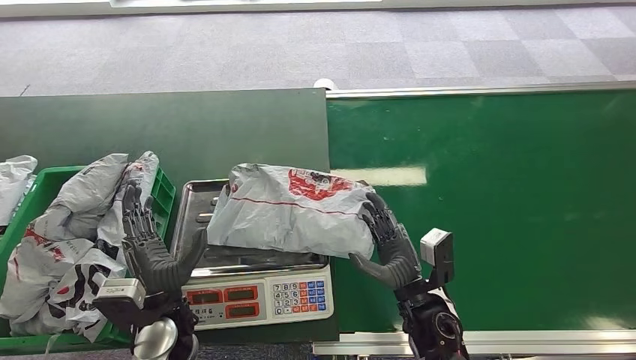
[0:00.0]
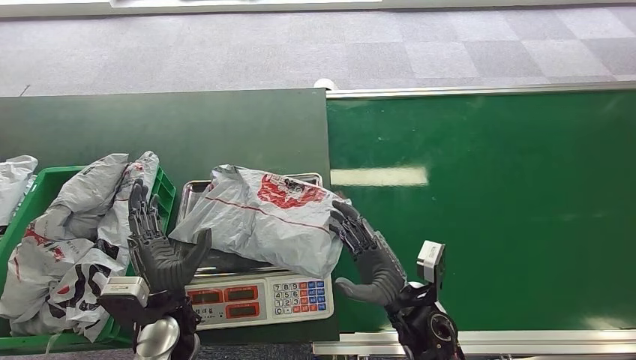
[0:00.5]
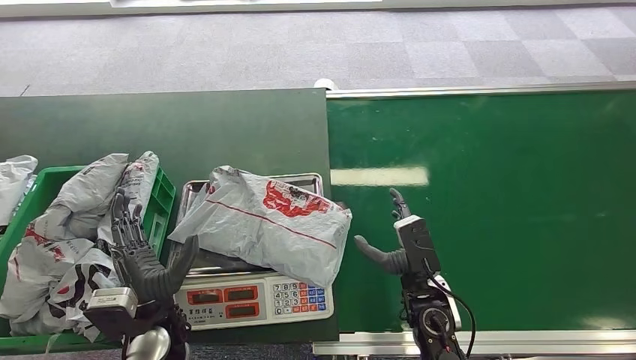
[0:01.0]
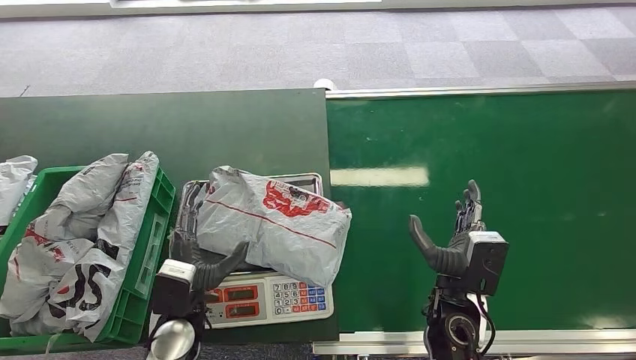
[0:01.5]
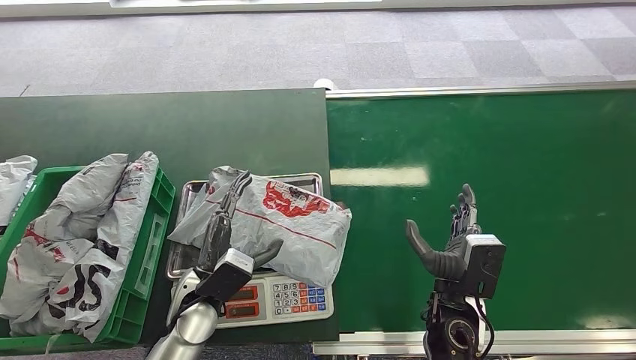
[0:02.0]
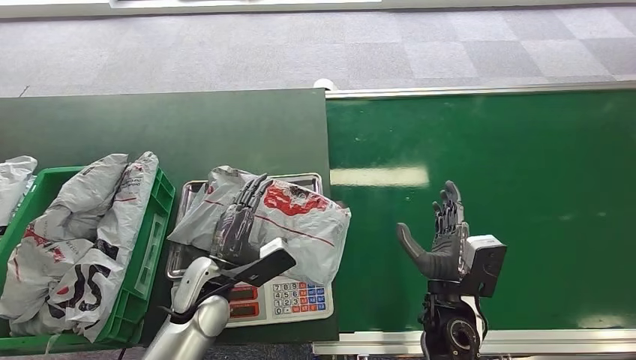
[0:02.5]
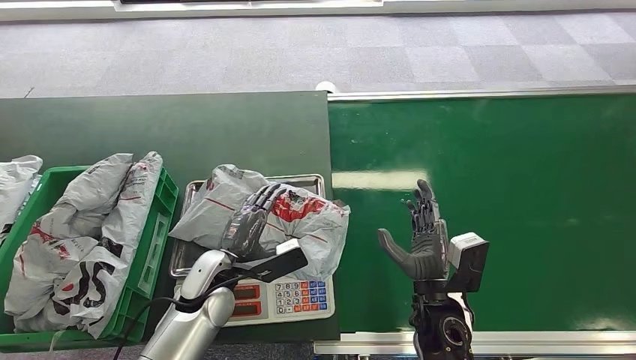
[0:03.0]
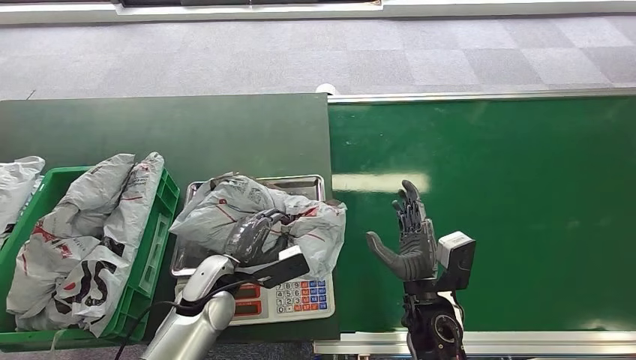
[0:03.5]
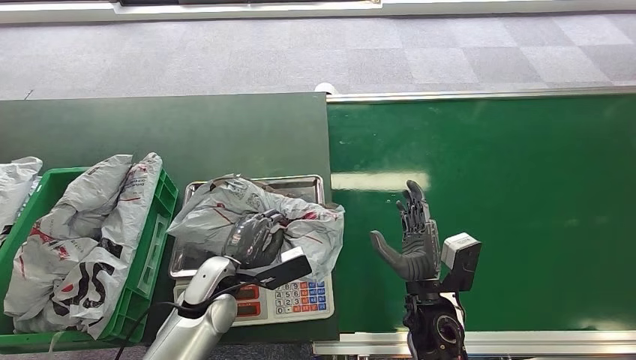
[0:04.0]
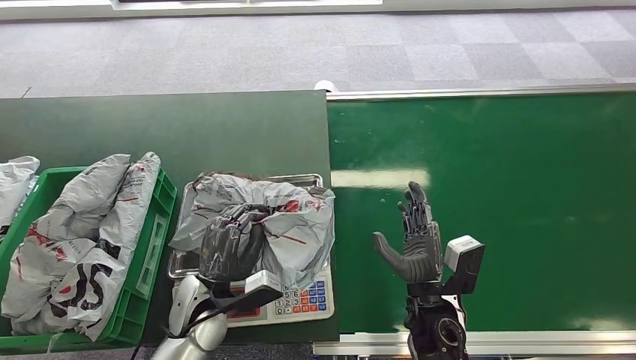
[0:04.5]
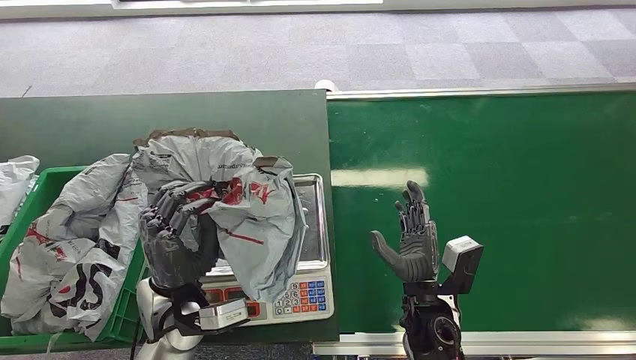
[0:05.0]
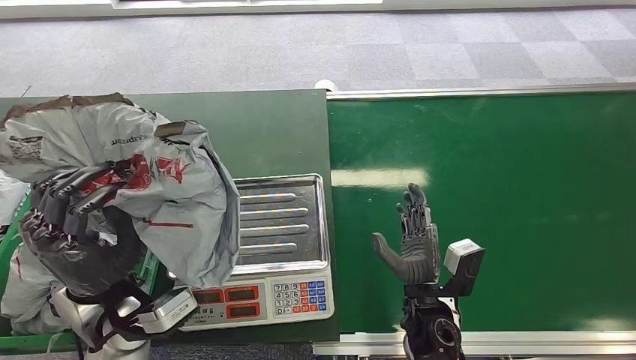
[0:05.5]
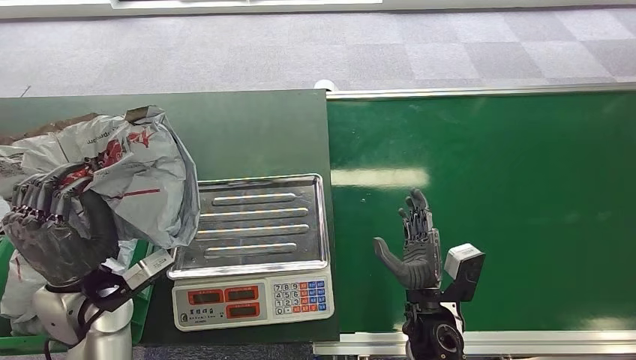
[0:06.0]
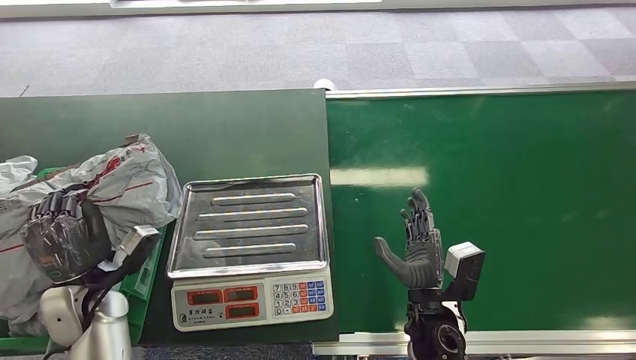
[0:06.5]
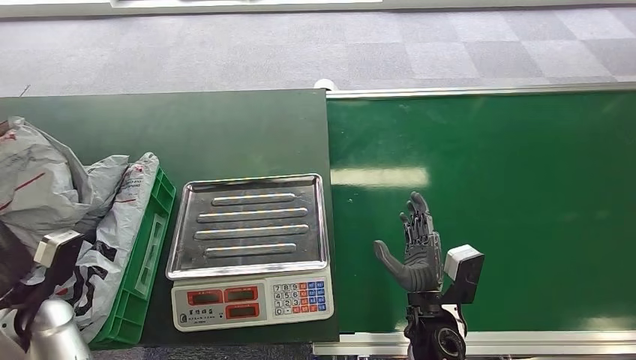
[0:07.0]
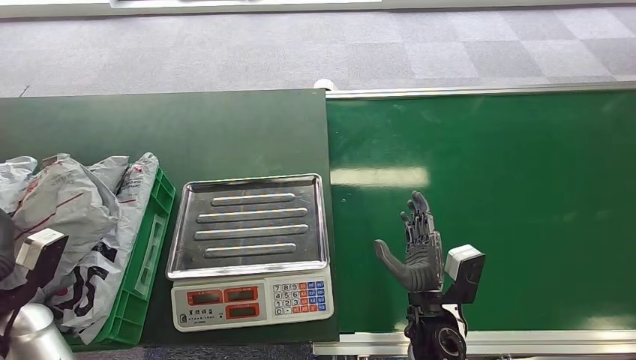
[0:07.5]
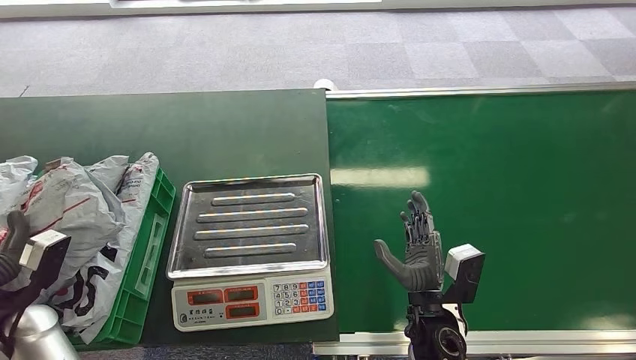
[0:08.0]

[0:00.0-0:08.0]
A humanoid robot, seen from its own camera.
Step, 0:04.0 to 0:05.0: Pick up the package from the inbound machine.
Step, 0:06.5 to 0:08.0: Place the package into the parcel locker.
0:06.0 to 0:08.0: The left hand heads to the left, covering roughly 10 cm.

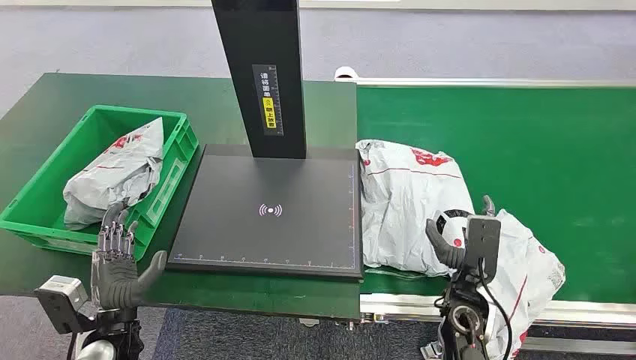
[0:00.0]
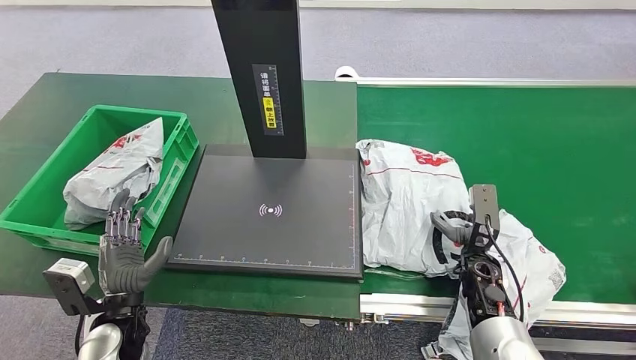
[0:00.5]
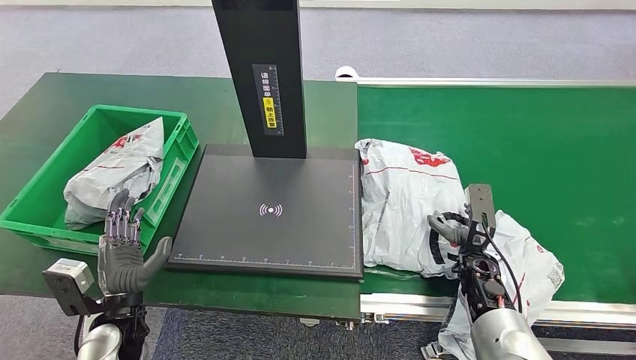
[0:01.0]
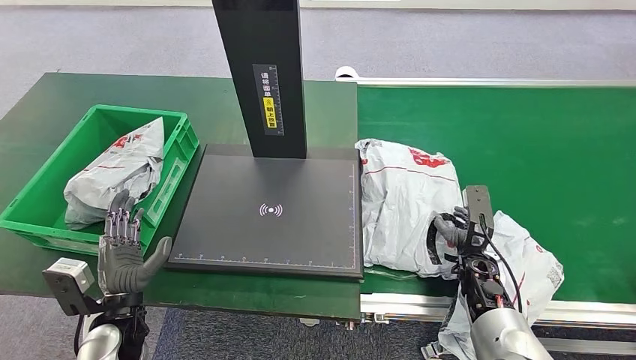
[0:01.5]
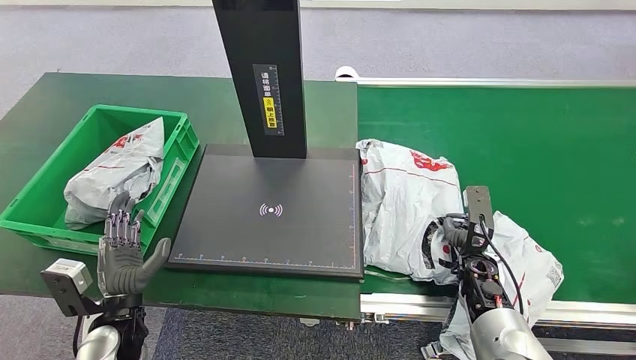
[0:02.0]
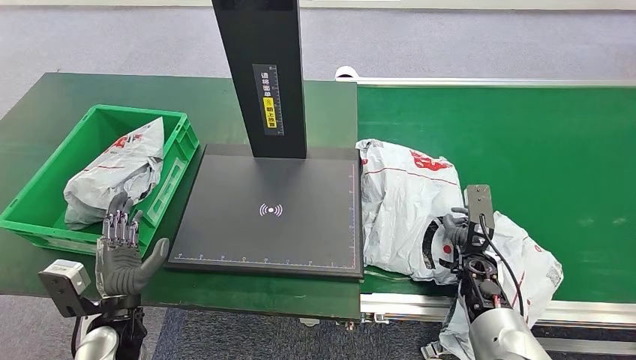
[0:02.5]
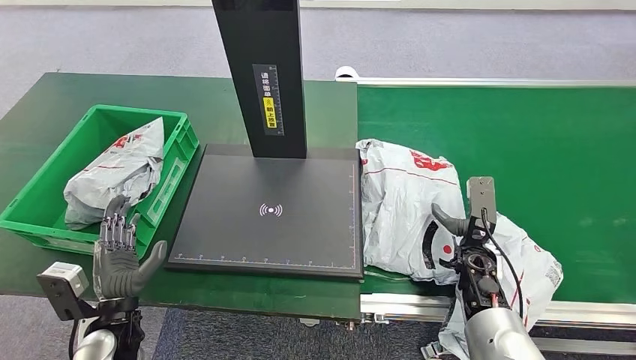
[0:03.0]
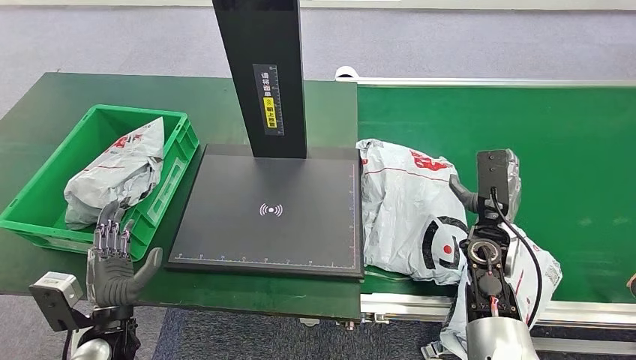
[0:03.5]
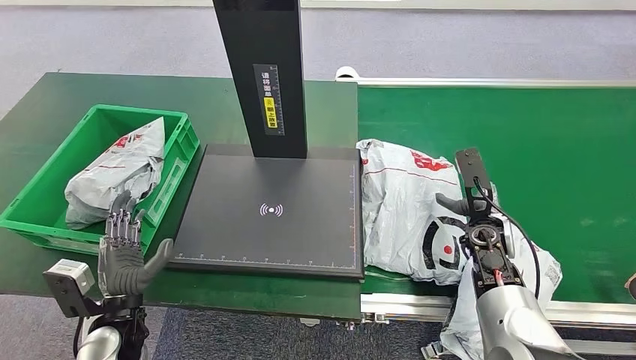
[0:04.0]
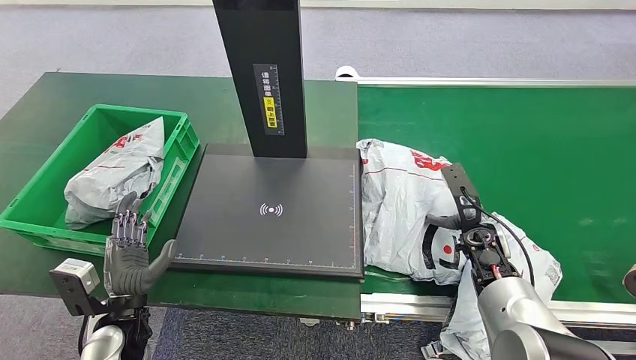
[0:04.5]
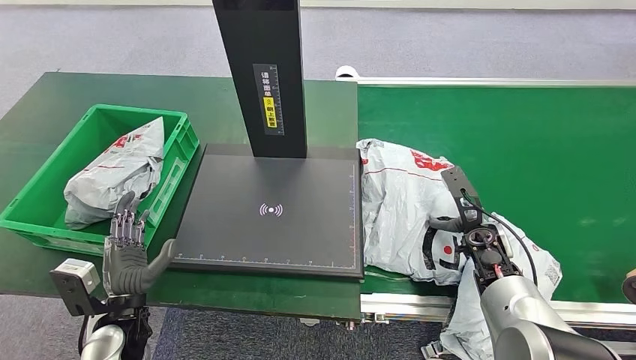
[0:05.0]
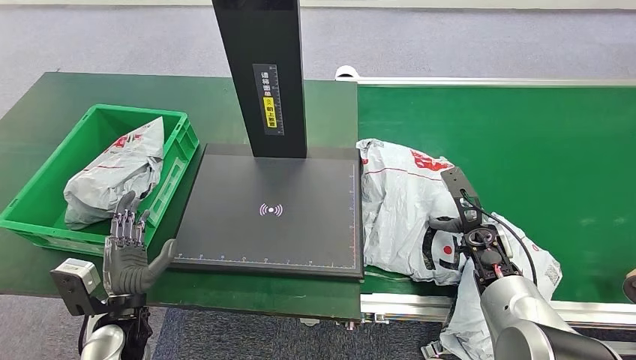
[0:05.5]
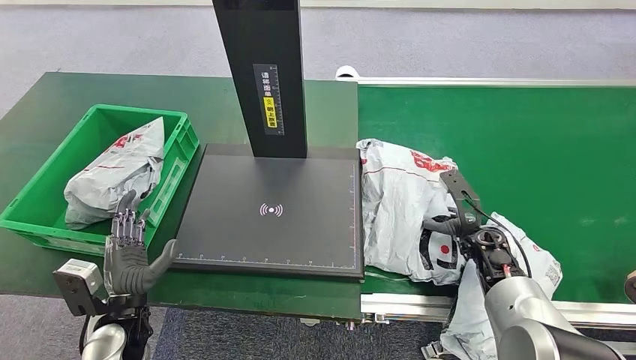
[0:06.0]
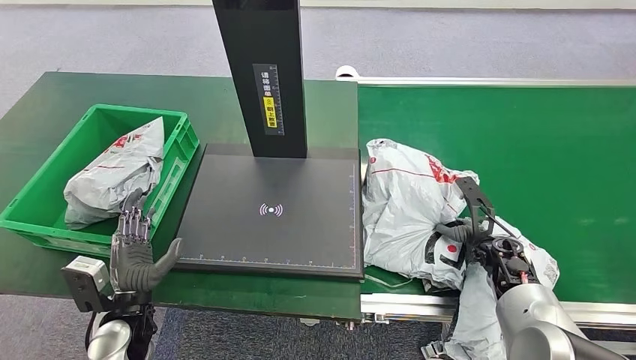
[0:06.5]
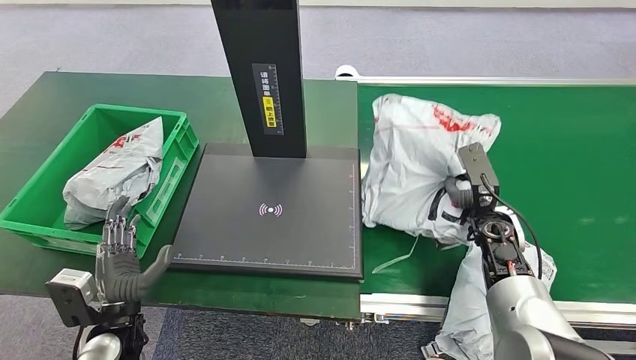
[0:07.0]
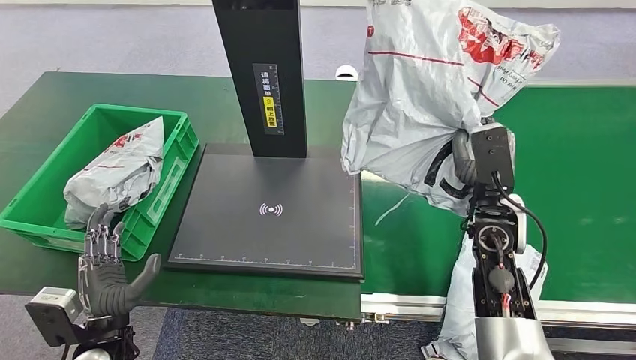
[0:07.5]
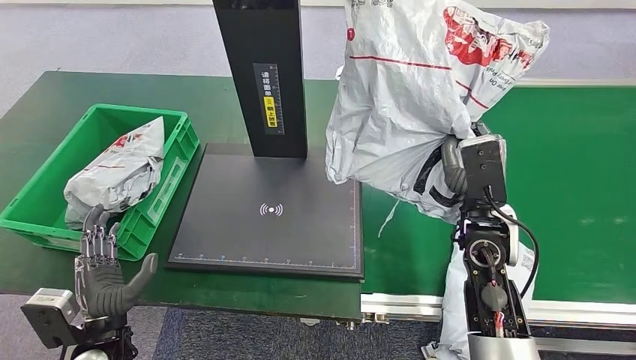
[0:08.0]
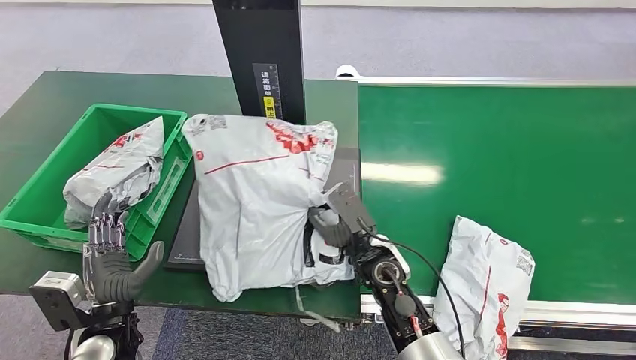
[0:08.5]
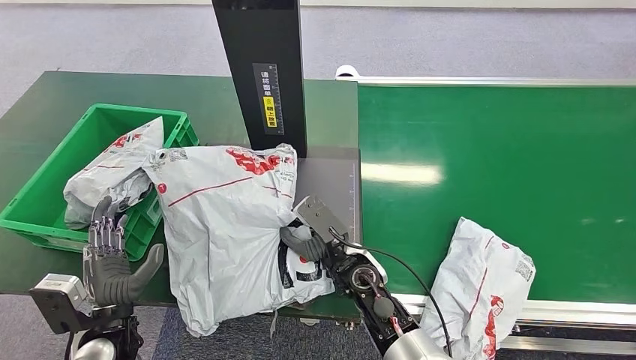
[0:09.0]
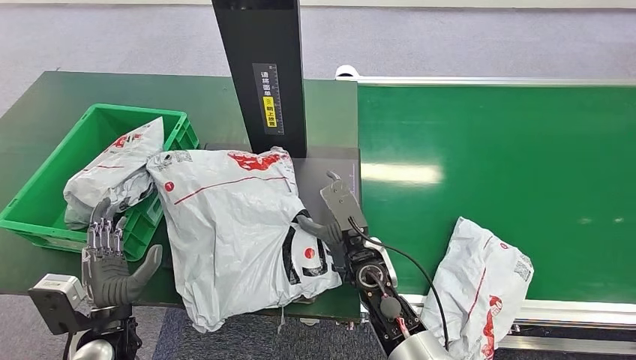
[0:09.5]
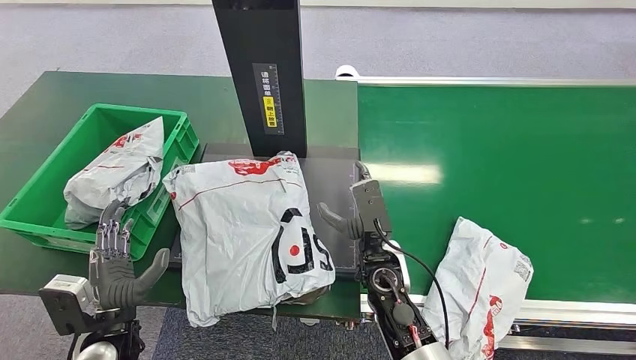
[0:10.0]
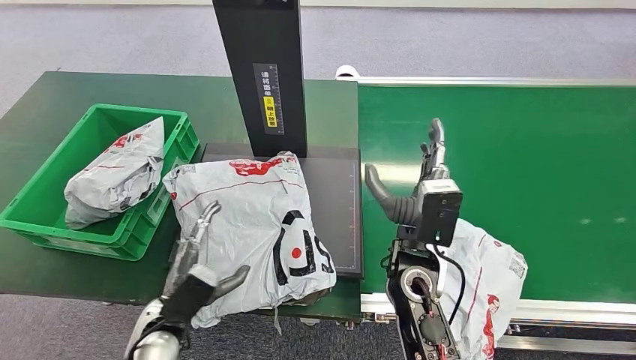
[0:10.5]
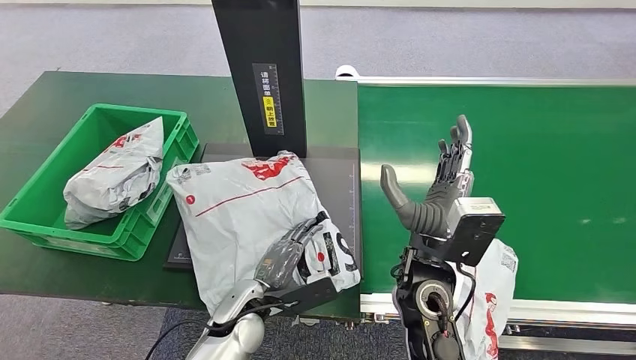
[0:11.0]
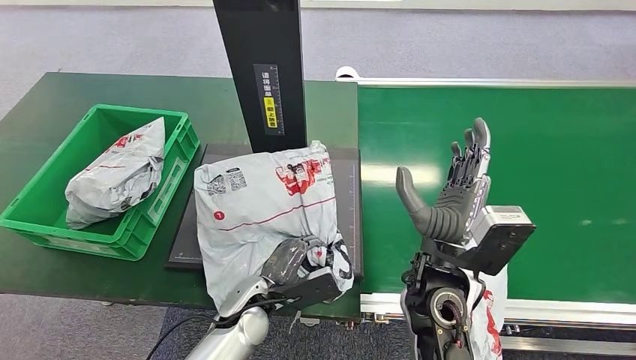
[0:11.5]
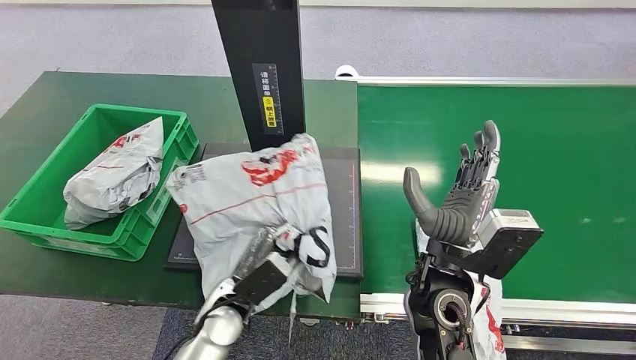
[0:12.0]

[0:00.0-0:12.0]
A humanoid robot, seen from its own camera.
Step, 0:00.0 to 0:07.0: Pick up the package from the conveyor belt.
Step, 0:08.0 to 0:11.5: Place the package onto the inbound machine.
0:02.0 to 0:04.0: The right hand goes some 5 cm upward.
